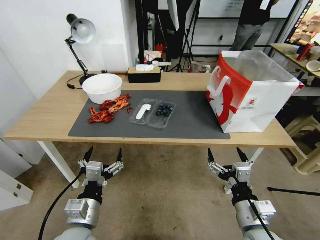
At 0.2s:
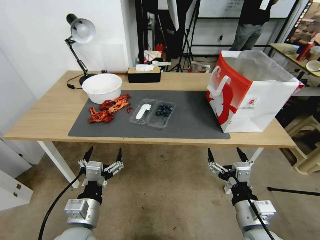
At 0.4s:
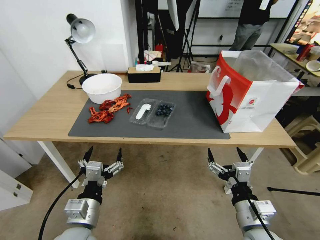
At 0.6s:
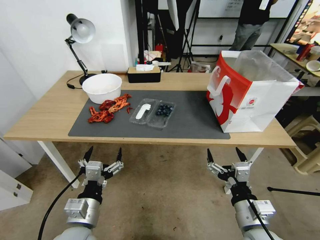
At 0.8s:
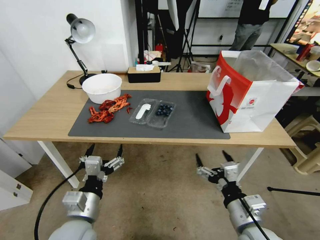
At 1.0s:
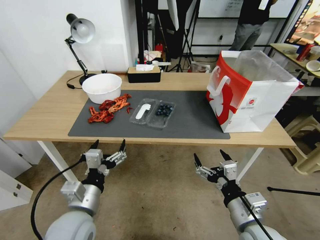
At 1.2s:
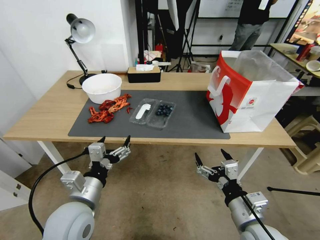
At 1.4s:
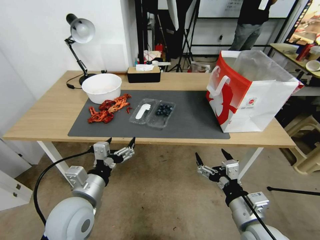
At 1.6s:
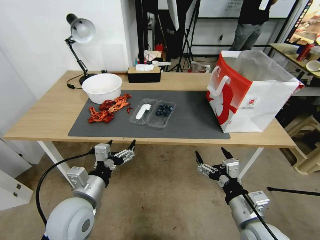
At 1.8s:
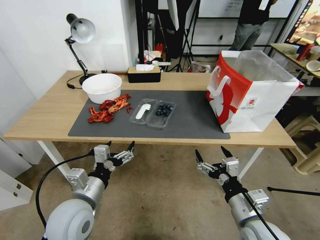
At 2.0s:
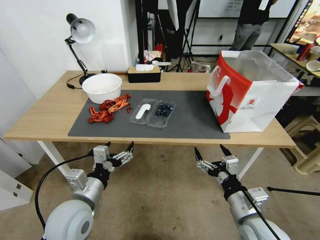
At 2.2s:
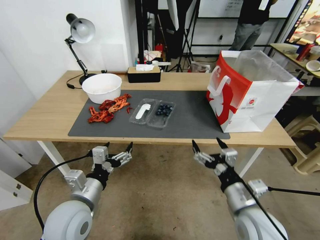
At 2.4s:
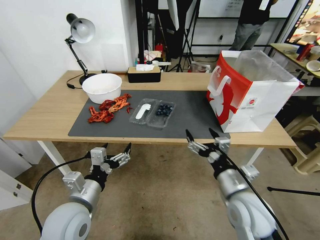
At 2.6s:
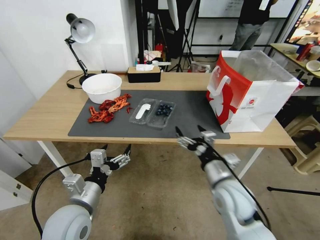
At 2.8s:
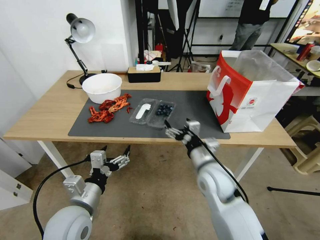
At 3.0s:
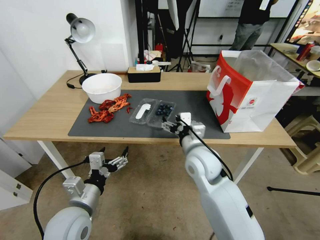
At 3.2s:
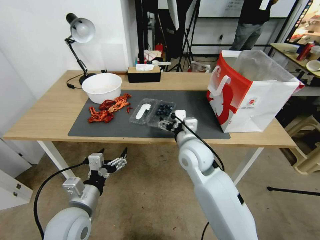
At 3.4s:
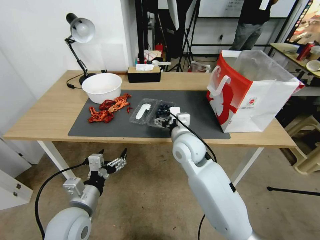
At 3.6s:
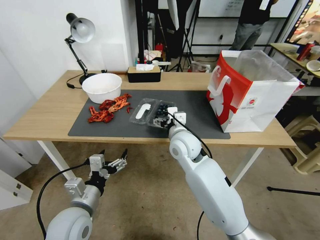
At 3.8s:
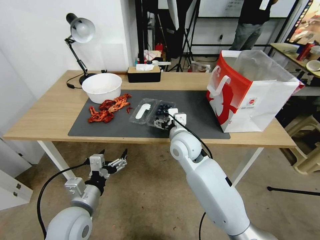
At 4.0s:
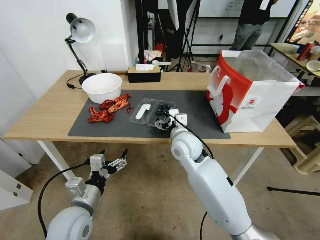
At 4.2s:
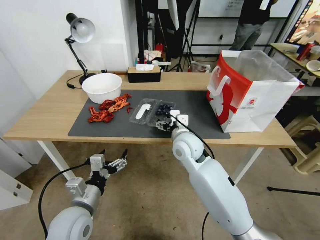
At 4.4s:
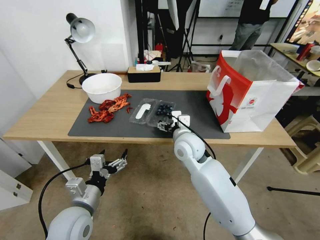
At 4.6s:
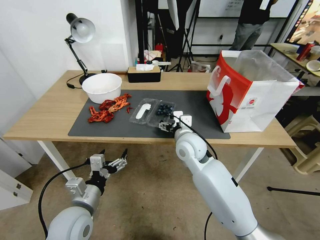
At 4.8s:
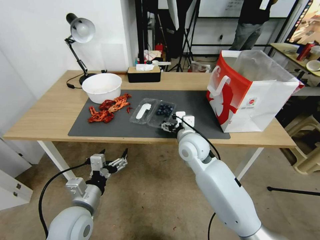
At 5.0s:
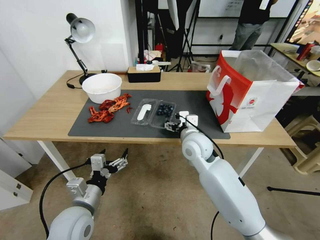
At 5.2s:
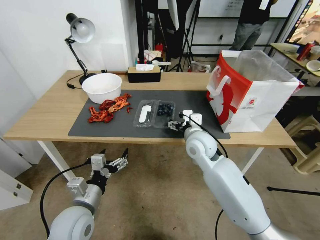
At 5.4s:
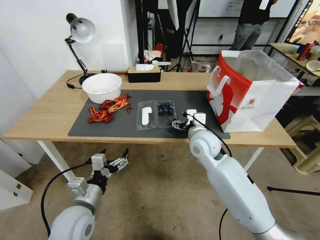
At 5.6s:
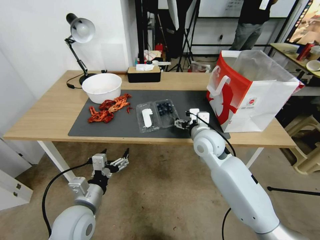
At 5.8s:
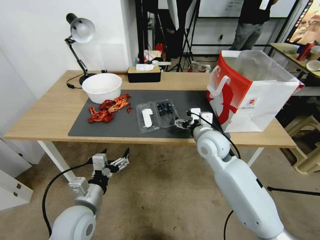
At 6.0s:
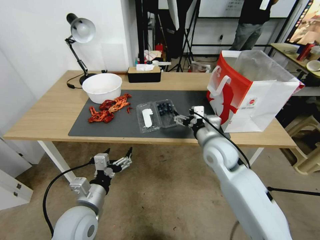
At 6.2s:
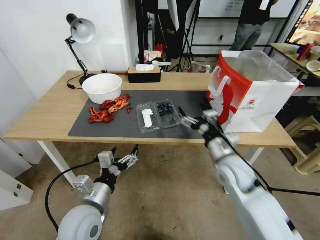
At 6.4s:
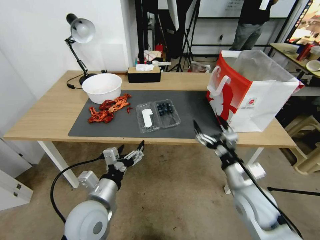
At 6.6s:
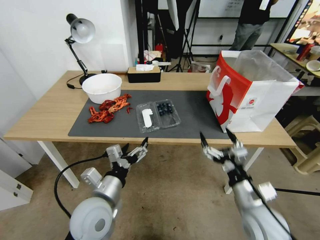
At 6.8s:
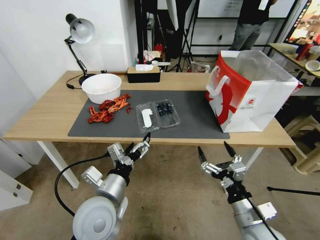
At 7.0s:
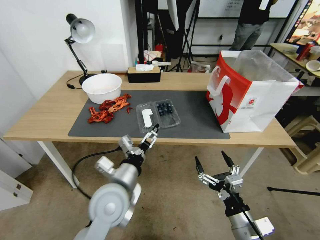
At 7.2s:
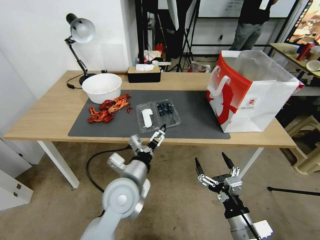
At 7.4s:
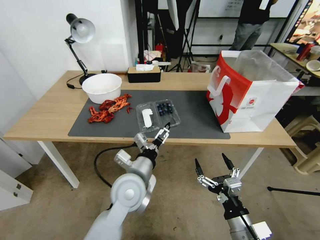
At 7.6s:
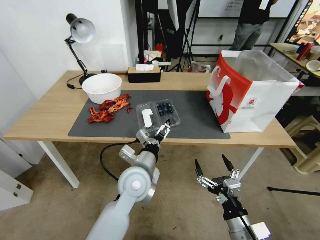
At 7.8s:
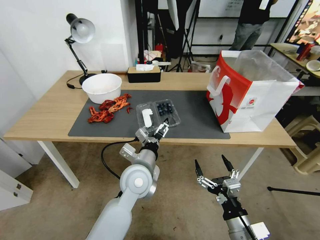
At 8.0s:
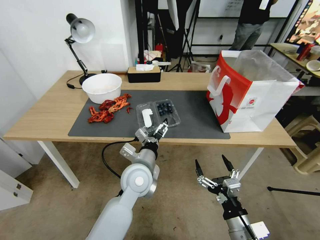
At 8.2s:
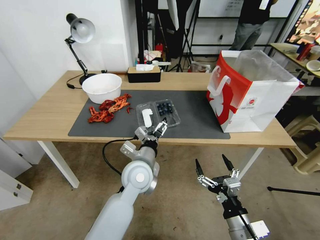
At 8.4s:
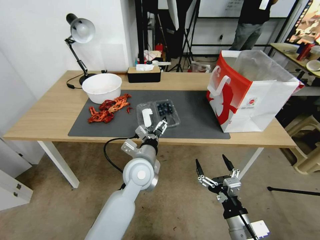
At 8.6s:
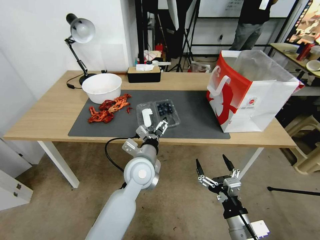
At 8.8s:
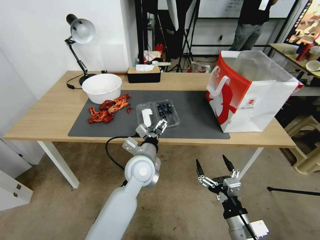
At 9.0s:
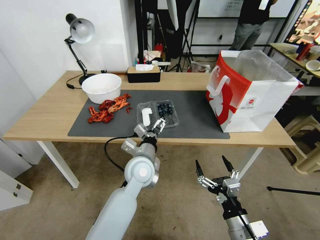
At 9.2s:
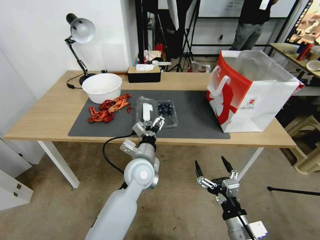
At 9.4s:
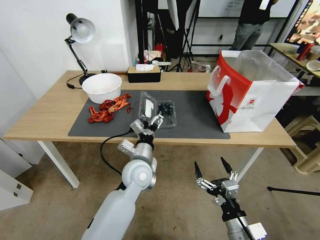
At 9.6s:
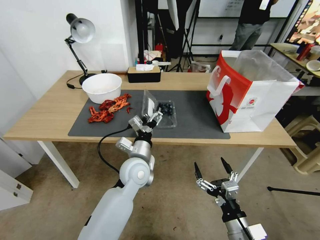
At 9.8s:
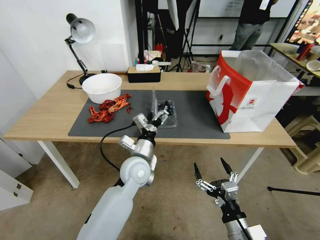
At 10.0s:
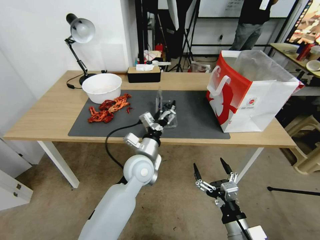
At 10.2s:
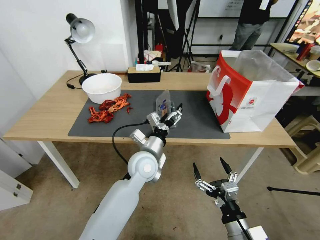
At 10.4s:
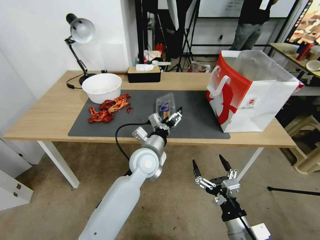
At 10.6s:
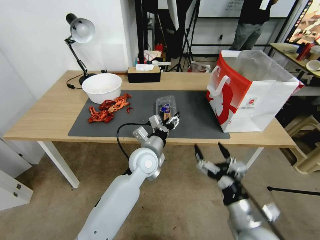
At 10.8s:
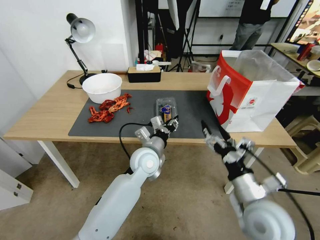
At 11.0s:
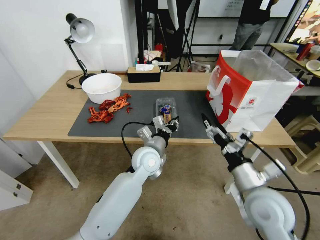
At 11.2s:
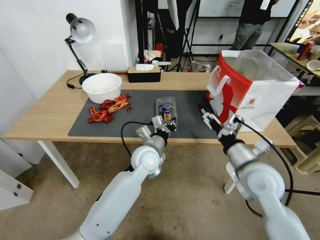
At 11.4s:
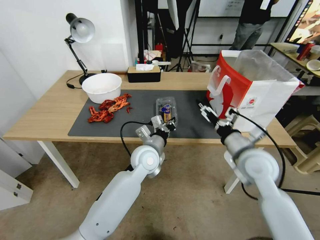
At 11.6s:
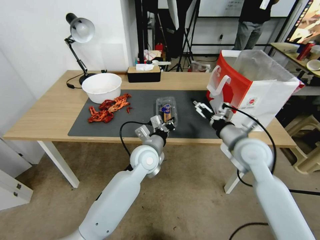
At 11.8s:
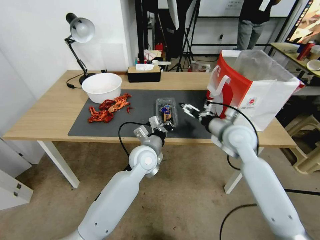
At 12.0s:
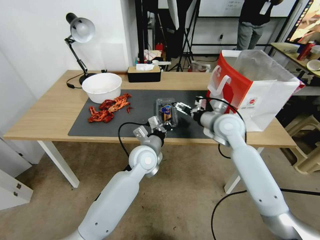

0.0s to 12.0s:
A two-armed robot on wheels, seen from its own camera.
Task of the whole recording: Close the takeout container lid, then place the container into the takeout bag.
1.6s to 3.0s: The right gripper heads forward and to the left, covering some 20 cm.
3.0s to 4.4s: The right gripper heads forward, covering some 5 cm.
4.4s to 6.0s: The right gripper goes roughly 10 cm to the right.
6.0s to 7.6s: The left gripper travels to the right and forward by some 15 cm; the right gripper goes about 25 cm backward and downward.
7.6s to 9.0s: The grippers make only small movements.
10.4s to 12.0s: The left gripper closes up; the right gripper travels forward and upward by some 35 cm.

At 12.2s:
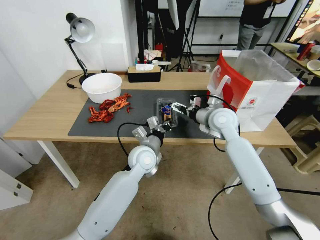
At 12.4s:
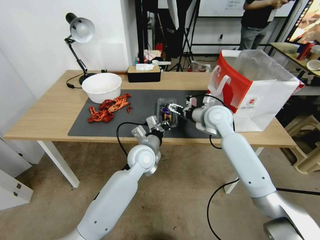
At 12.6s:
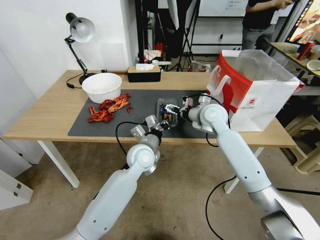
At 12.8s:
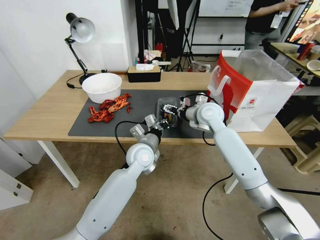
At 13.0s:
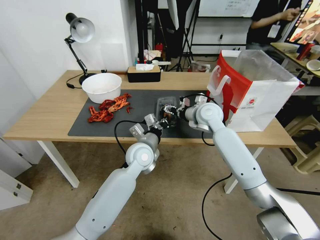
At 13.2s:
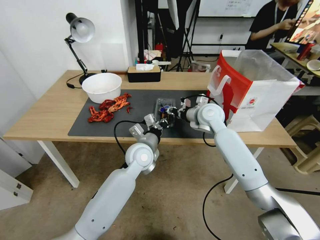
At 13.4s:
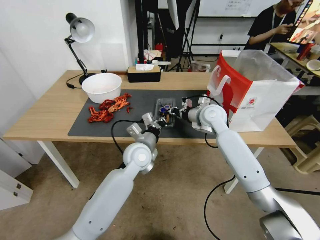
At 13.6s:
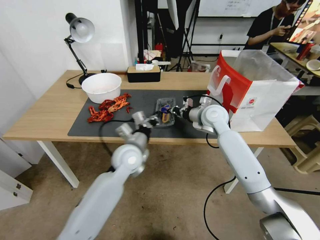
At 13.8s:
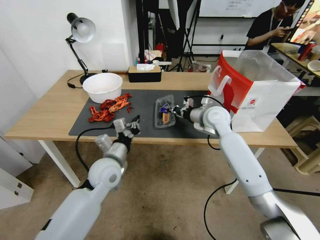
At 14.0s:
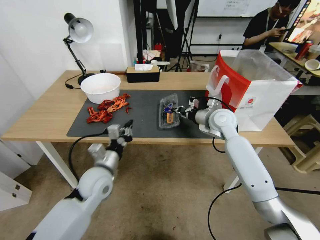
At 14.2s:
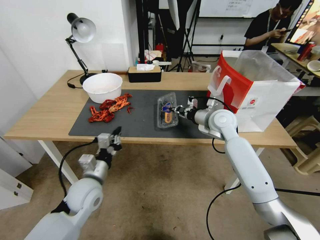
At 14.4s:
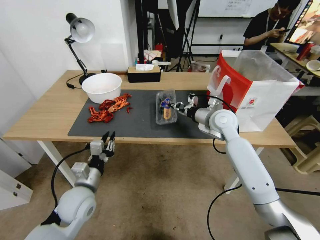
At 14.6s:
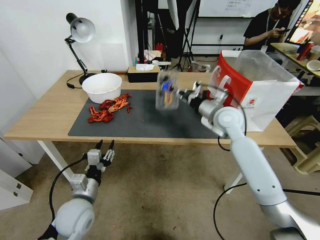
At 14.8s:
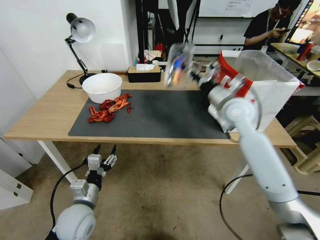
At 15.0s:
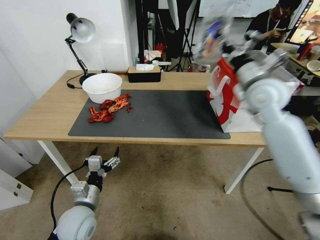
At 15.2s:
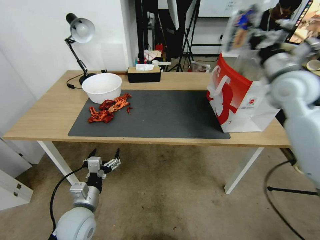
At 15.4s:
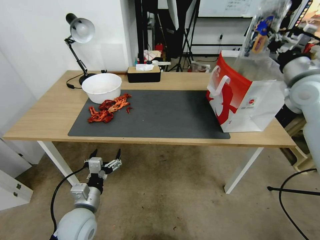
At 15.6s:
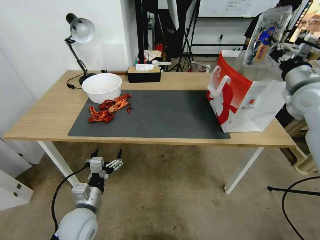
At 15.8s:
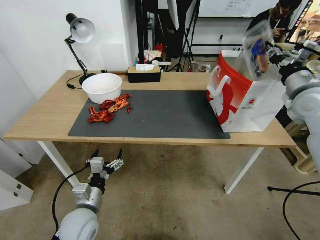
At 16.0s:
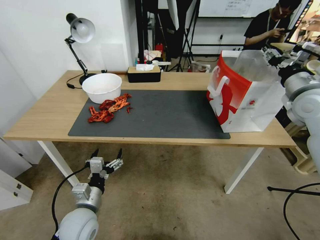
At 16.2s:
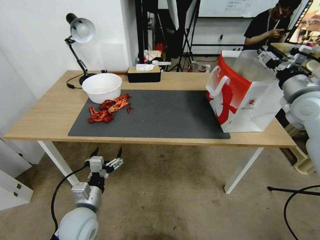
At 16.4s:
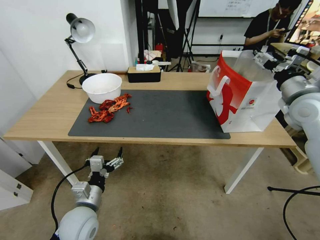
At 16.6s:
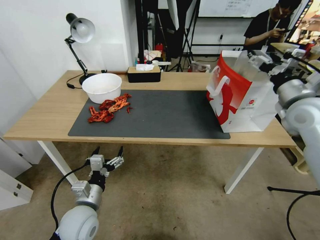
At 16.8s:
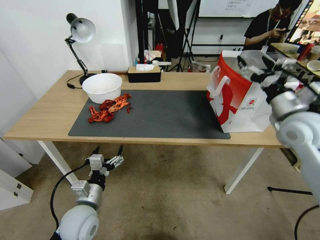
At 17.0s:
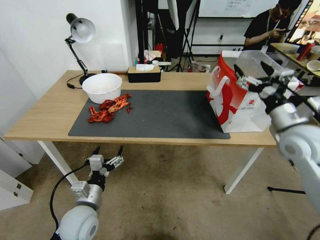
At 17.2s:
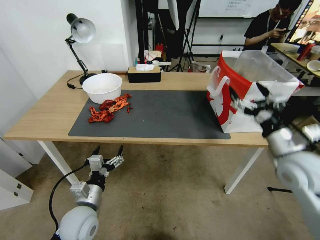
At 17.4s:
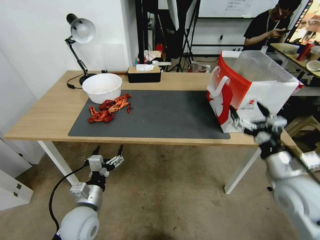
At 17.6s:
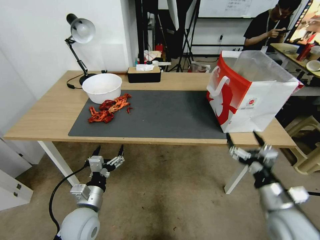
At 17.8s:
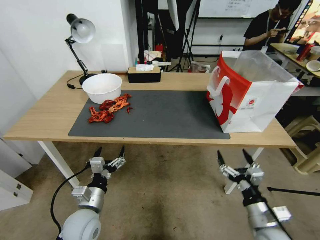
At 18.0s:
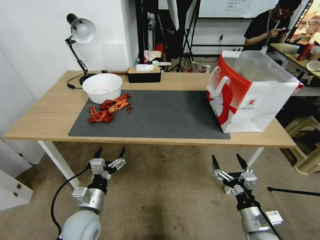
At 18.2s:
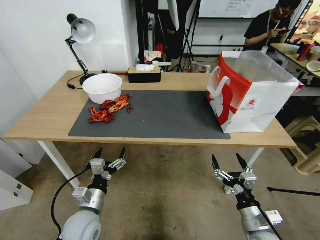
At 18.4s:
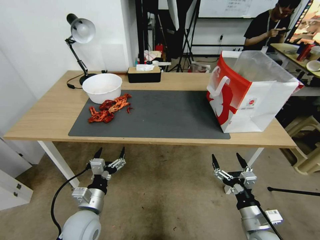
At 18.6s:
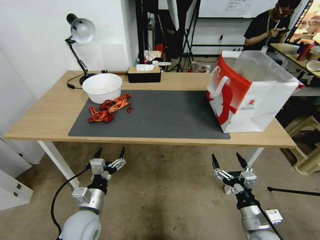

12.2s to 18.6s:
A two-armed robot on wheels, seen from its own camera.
Task of the whole recording: Close the takeout container lid, then place the container into the takeout bag.
12.2s to 13.8s: The left gripper moves to the left and backward, some 10 cm. Meanwhile the right gripper closes.
13.8s to 15.4s: The left gripper heads backward, downward and to the left, covering some 15 cm, and opens up. Meanwhile the right gripper heads to the right and upward, covering some 25 cm.
15.4s to 17.0s: The right gripper moves downward and backward, approximately 15 cm, and opens its fingers.
17.0s to 18.6s: The right gripper moves downward and backward, roughly 30 cm.

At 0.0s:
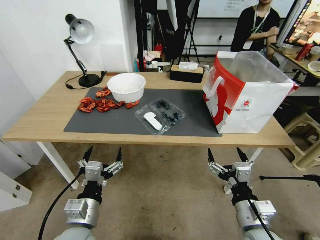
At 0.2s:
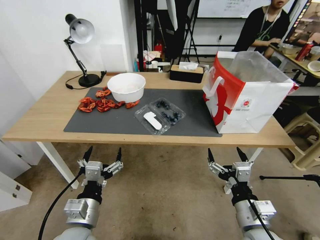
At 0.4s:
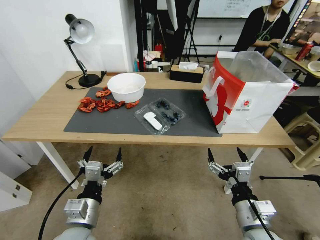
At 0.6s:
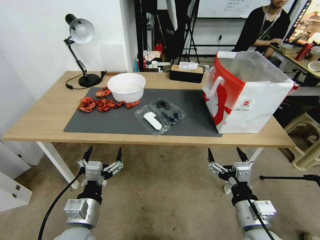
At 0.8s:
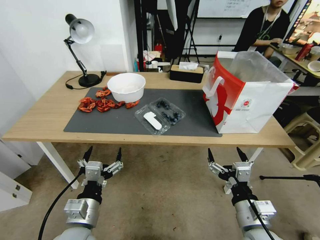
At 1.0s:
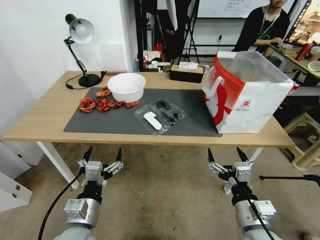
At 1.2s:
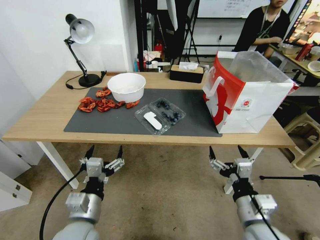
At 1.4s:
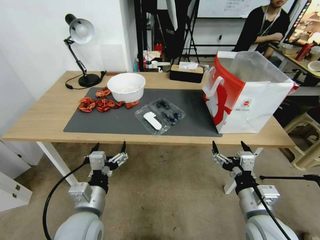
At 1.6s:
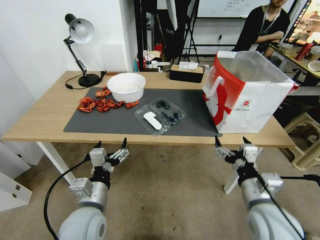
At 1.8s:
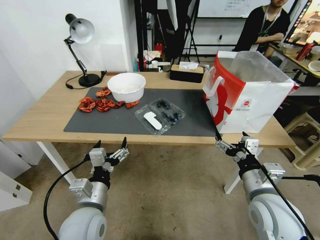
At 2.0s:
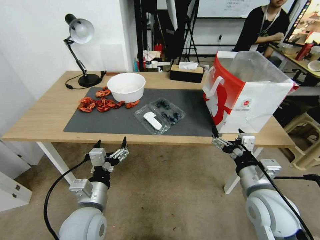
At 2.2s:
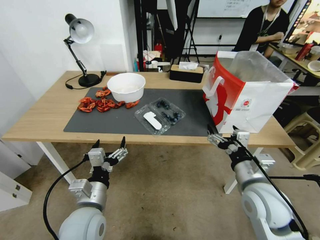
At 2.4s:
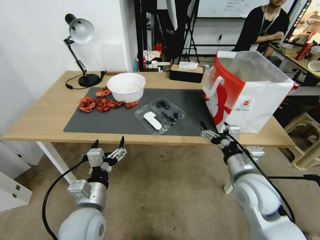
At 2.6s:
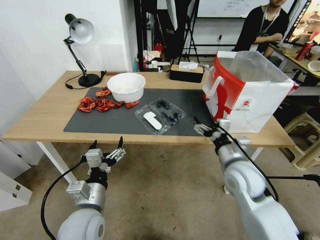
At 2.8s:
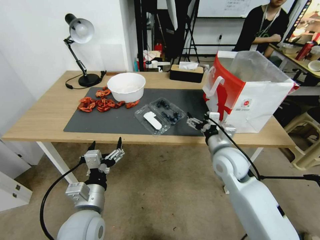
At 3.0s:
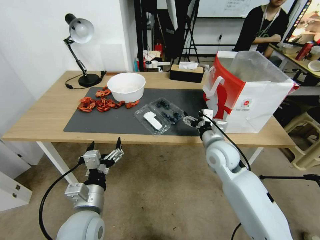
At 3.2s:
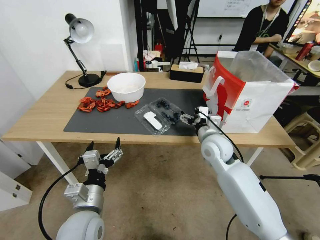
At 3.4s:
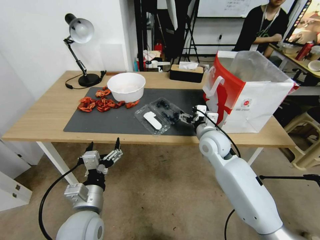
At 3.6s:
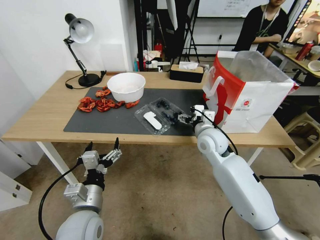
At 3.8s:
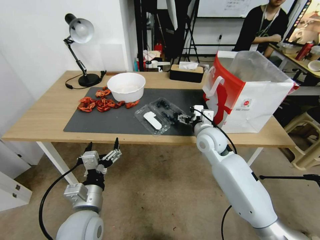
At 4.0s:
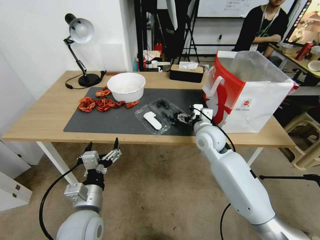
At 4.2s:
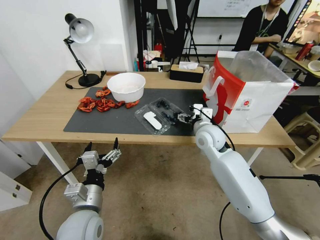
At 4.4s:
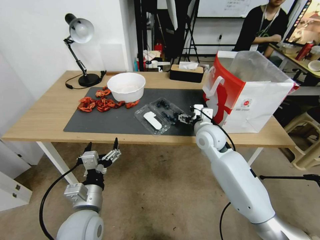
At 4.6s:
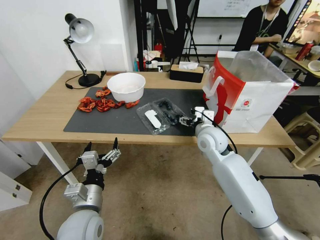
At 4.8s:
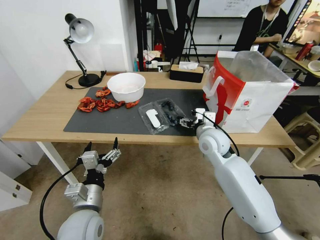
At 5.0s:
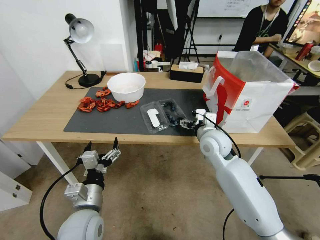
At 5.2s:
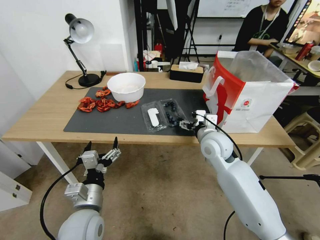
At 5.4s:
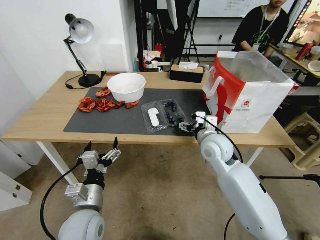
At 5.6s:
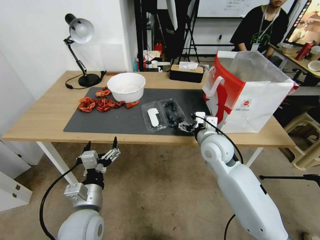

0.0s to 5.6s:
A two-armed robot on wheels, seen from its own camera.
Task of the whole recording: Close the takeout container lid, then place the container into the takeout bag.
1.4s to 2.8s: The right gripper travels forward by approximately 20 cm.
2.8s to 4.2s: The right gripper is displaced forward by approximately 10 cm.
4.2s to 5.6s: The right gripper moves roughly 5 cm.
